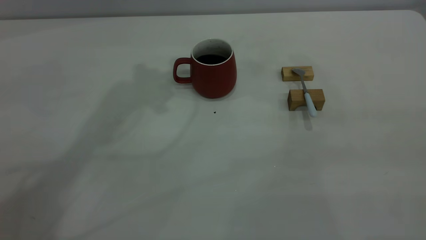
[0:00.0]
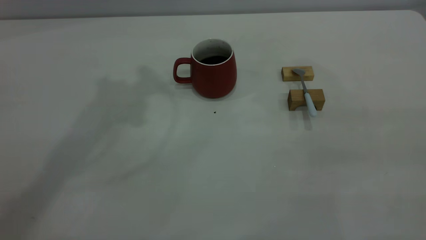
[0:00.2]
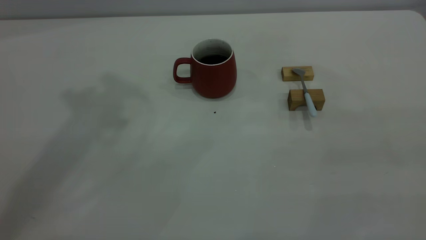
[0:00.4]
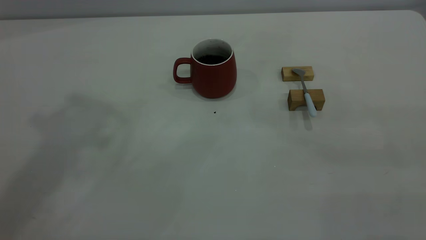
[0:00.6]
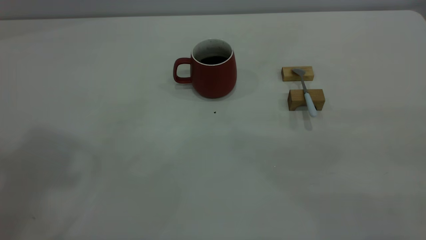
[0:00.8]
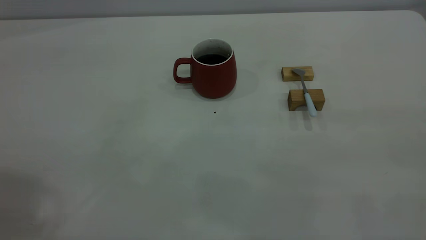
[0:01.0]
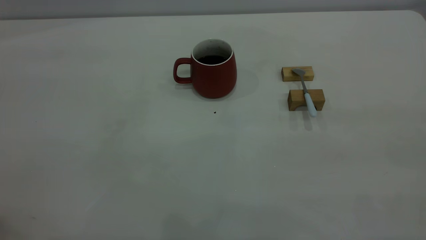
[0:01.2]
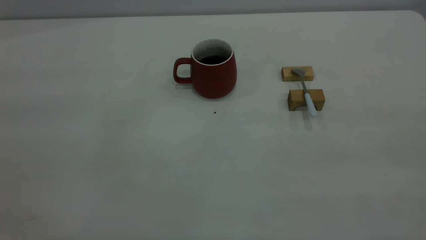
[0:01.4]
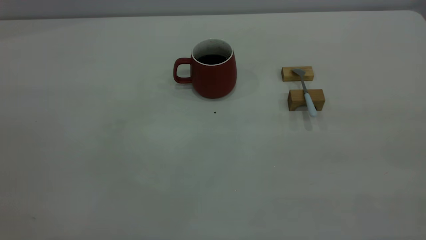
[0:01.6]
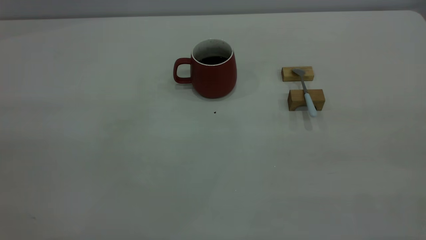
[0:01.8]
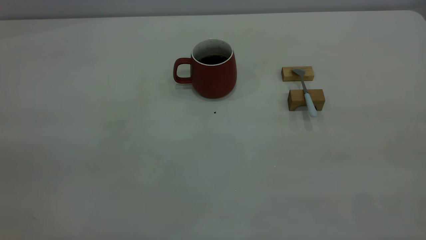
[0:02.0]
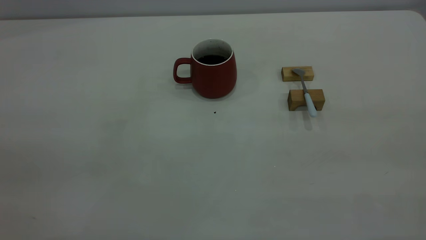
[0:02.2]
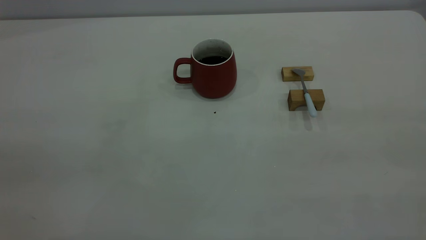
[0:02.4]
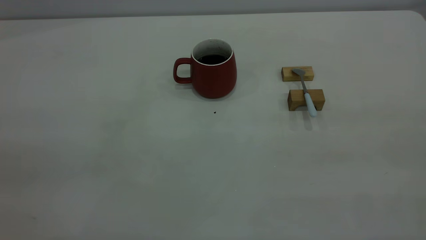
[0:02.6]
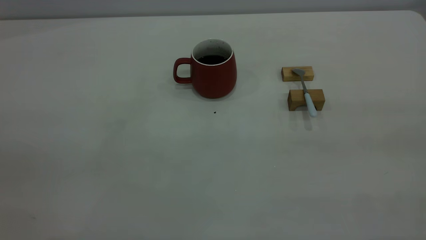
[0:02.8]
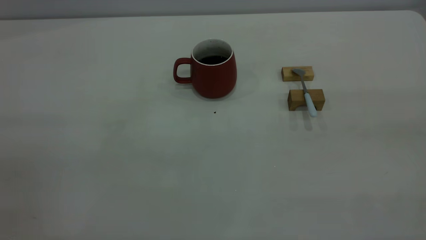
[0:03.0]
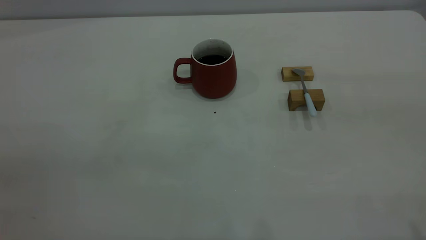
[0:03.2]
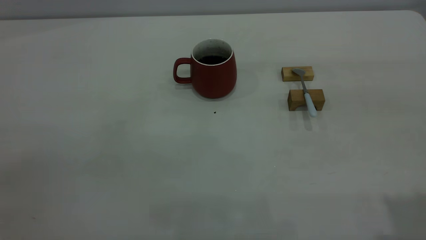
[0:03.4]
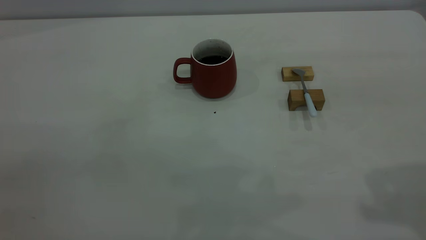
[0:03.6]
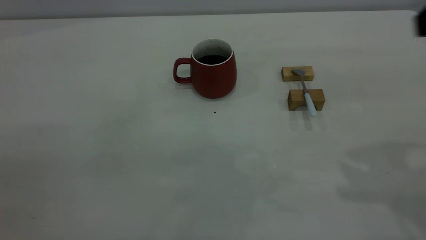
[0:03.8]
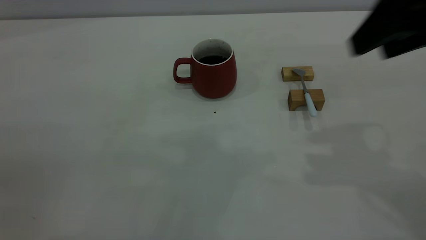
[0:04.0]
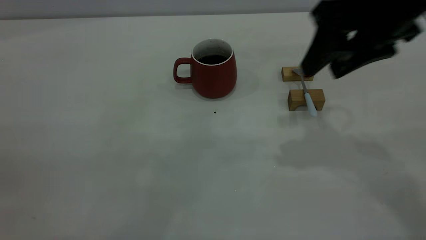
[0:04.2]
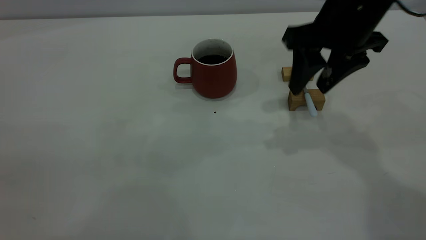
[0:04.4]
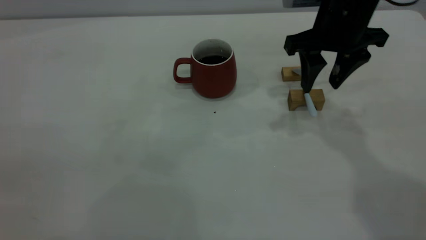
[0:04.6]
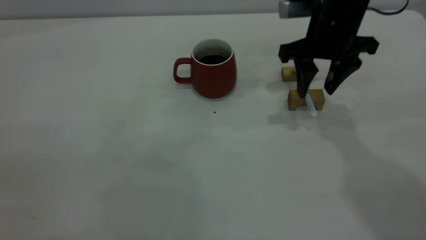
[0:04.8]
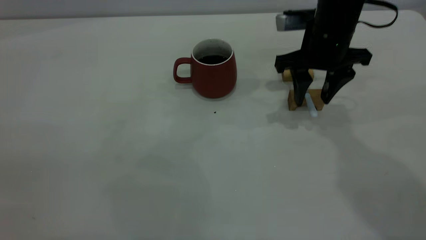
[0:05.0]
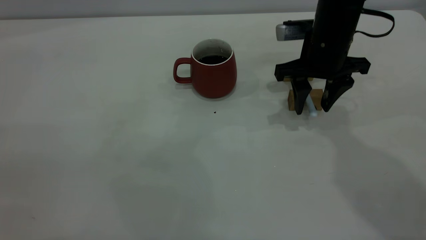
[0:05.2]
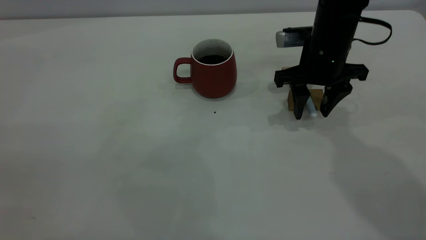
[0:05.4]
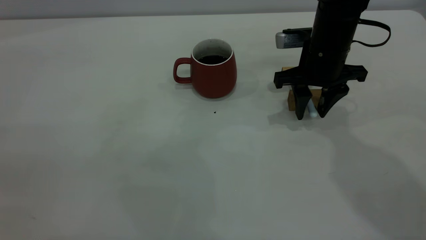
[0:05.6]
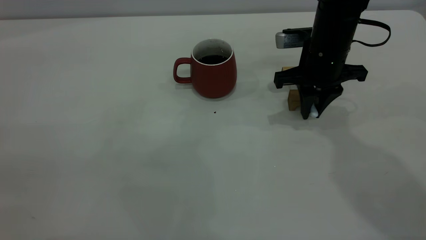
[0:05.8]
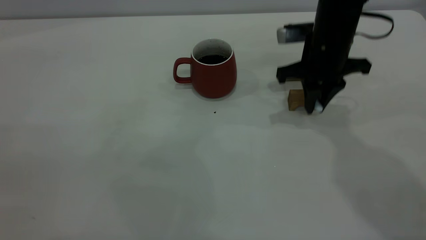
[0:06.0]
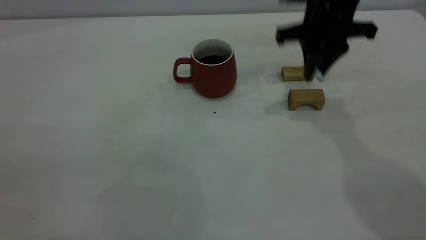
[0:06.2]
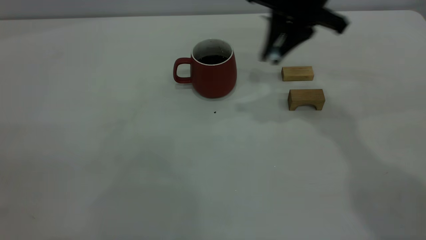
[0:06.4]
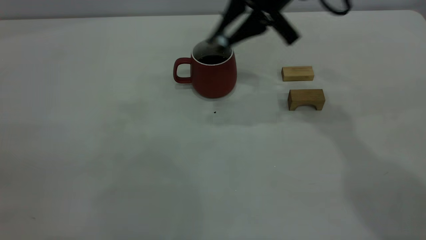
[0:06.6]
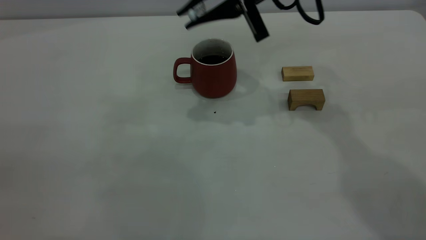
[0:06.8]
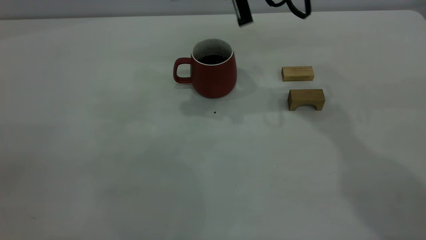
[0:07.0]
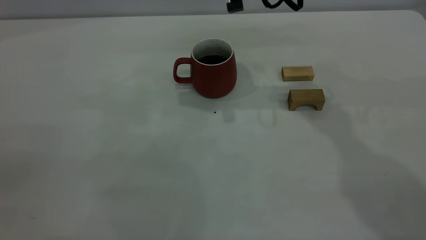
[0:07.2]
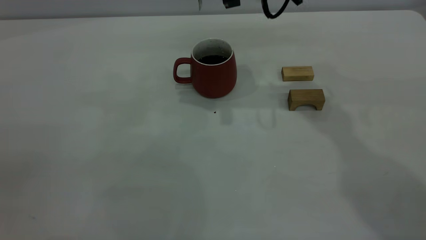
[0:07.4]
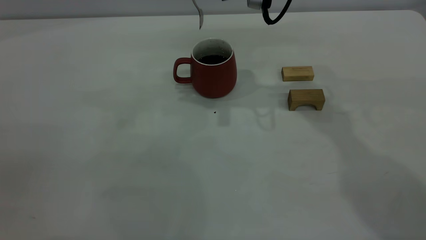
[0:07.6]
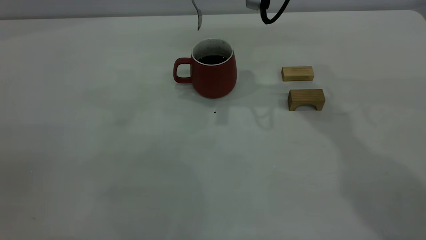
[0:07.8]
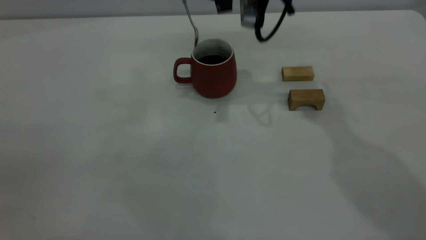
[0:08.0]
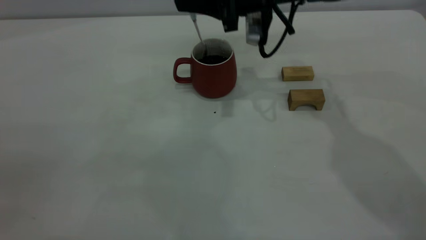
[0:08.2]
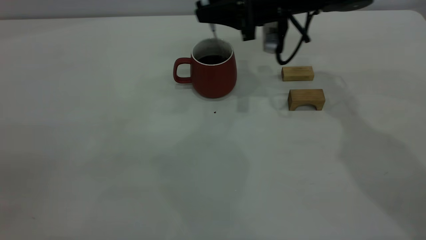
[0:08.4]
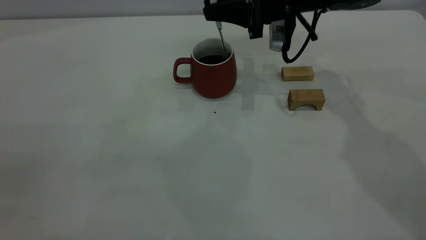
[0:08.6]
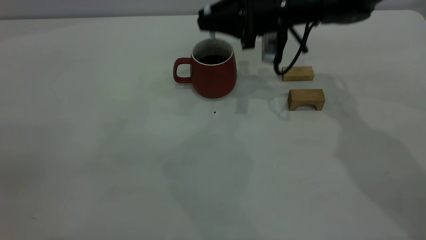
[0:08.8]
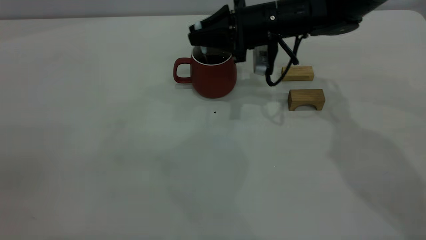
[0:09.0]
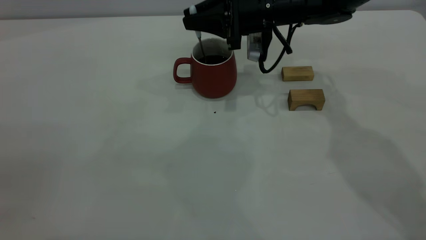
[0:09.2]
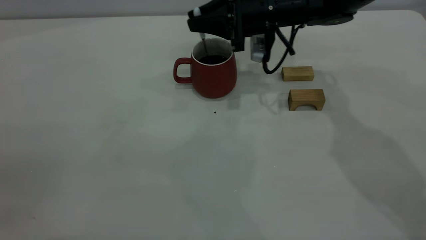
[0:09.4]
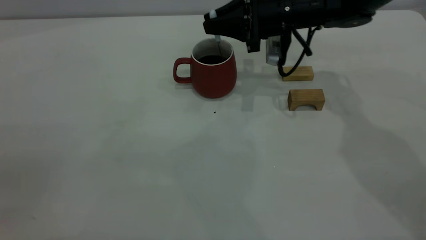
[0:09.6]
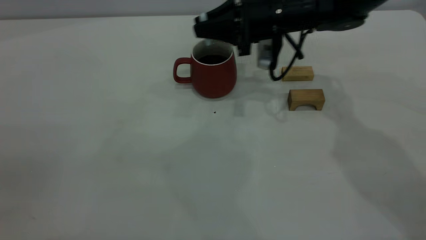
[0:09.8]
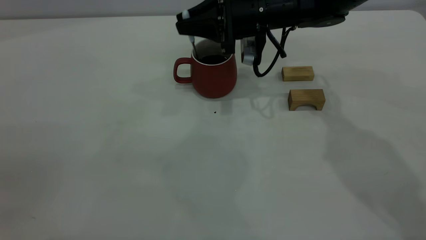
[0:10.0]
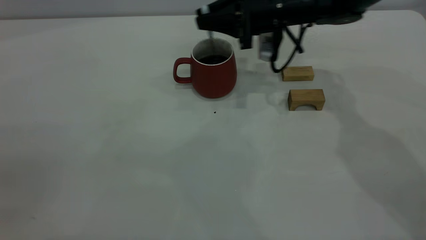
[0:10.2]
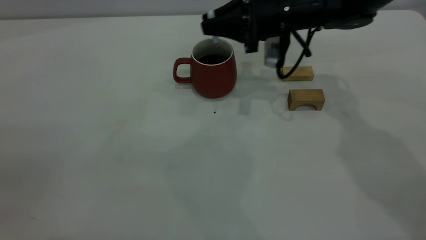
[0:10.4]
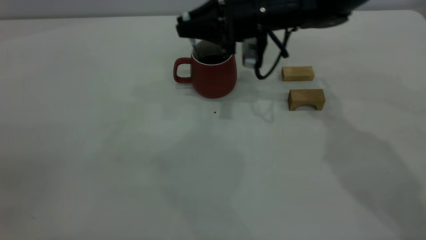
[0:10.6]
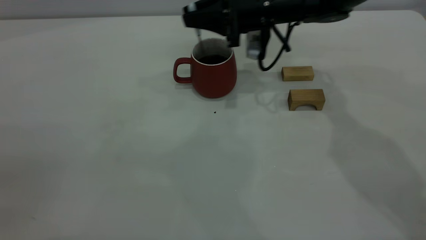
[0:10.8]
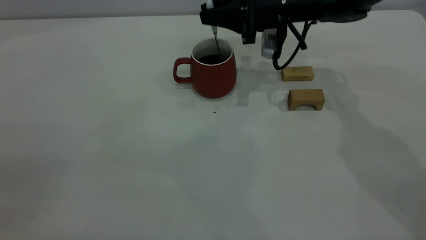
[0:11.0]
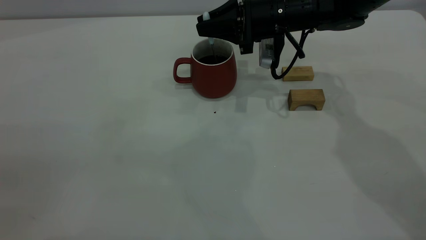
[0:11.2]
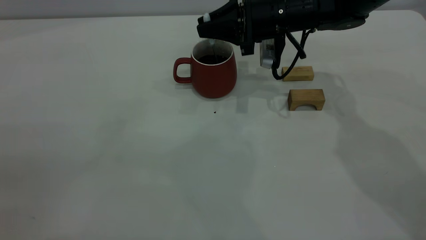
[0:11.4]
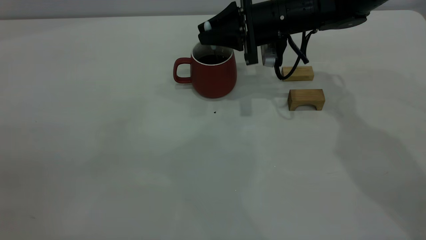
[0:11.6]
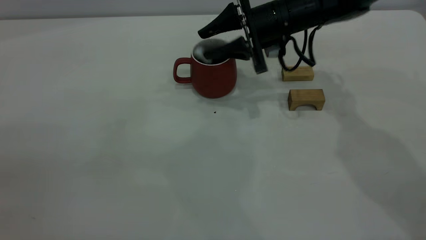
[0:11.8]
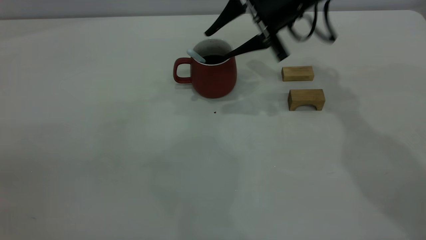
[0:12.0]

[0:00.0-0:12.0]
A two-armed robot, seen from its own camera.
Step, 0:00.0 to 0:06.2: Pick up the spoon.
Step, 0:06.6 to 0:11.8: Stir the coffee in the cup.
0:03.0 to 0:04.4: The right gripper moves forward, downward and to the left, some 40 cm, and opens.
0:04.4 to 0:06.0: The right gripper shifts roughly 10 cm downward and forward, and closes its fingers.
0:06.0 to 0:07.6: The right gripper heads upward and to the left, covering some 15 cm.
0:07.6 to 0:09.0: The right gripper shifts some 10 cm downward.
0:09.0 to 0:10.4: The grippers make only small movements.
0:10.4 to 0:12.0: The right gripper travels upward by roughly 5 cm, and opens up.

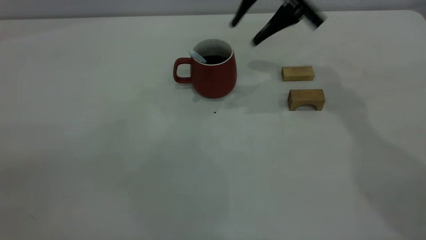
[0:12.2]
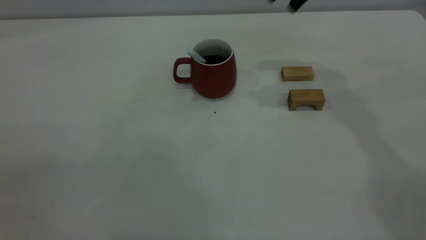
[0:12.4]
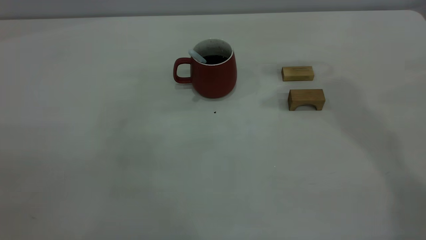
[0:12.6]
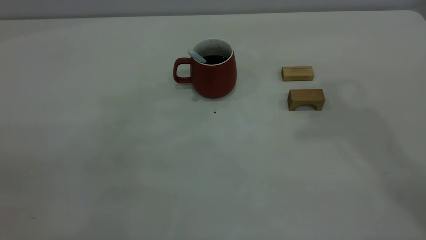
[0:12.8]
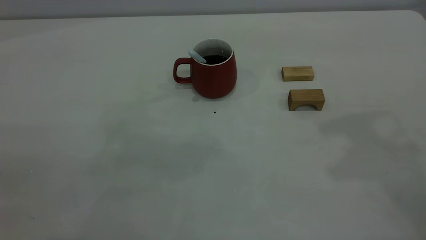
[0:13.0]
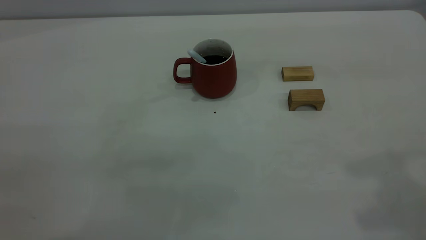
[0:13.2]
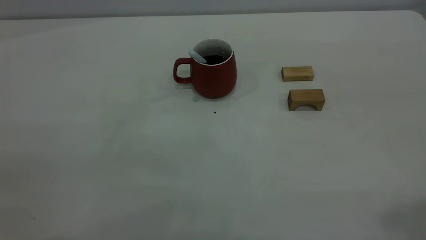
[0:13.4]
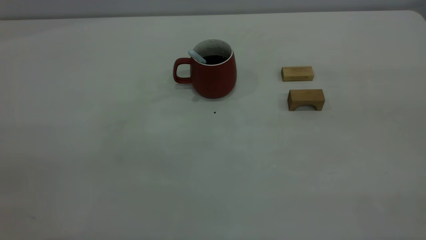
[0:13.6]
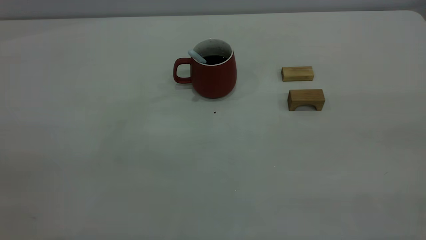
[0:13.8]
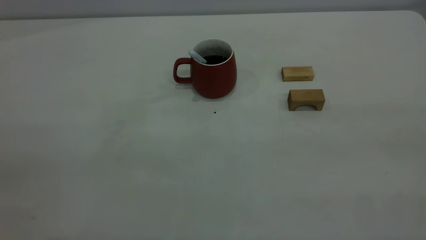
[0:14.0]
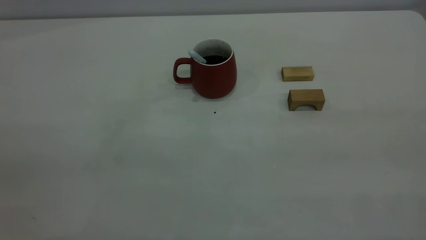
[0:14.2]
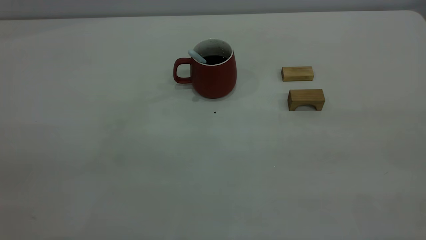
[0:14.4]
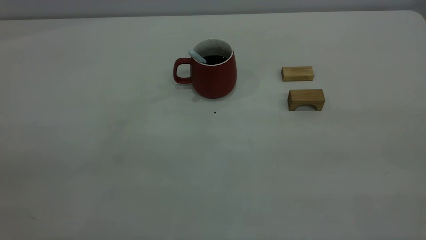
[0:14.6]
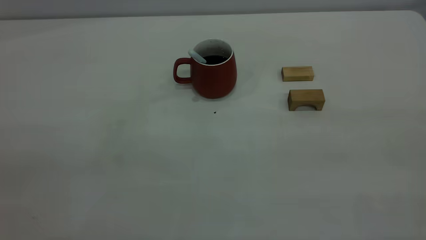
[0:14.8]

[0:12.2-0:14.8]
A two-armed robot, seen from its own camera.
0:12.2 to 0:13.4: The right gripper goes about 40 cm backward, upward and to the right, and closes.
